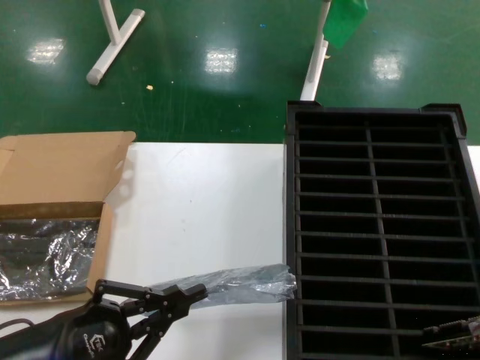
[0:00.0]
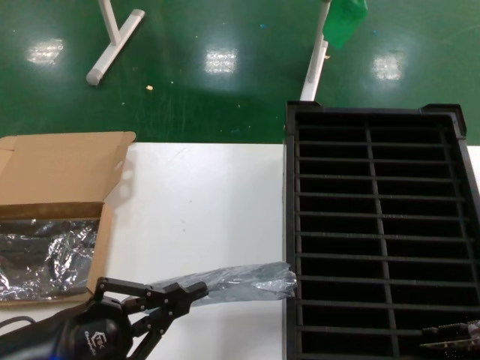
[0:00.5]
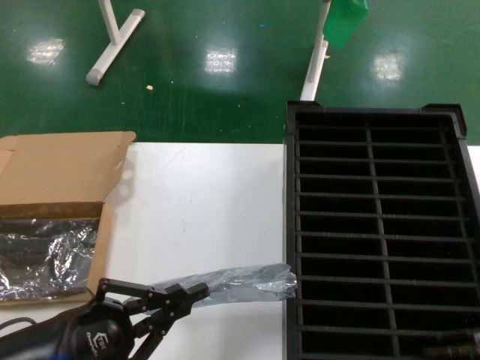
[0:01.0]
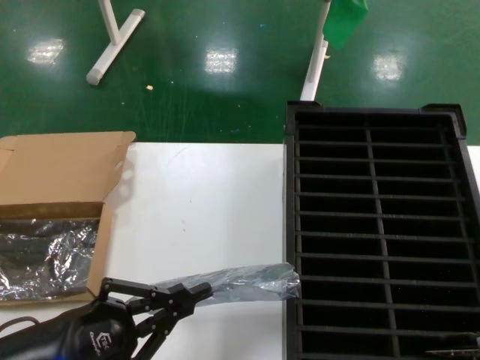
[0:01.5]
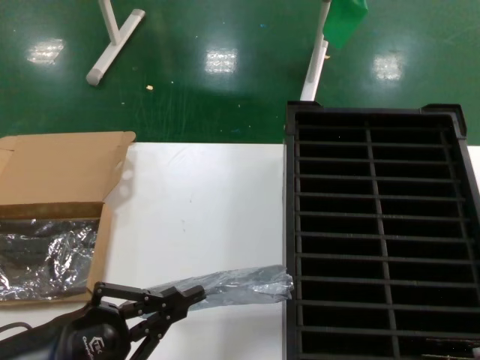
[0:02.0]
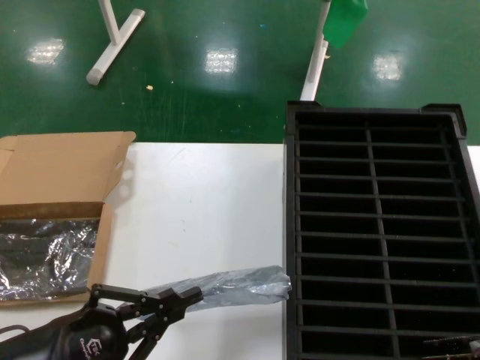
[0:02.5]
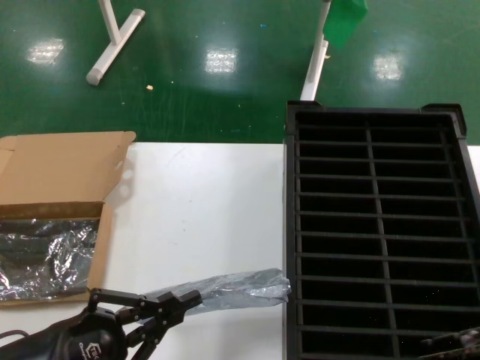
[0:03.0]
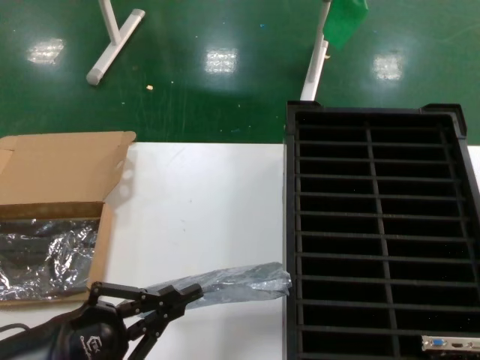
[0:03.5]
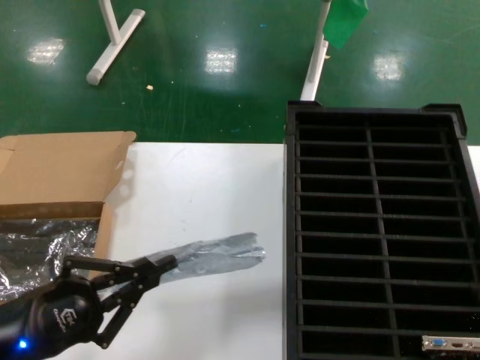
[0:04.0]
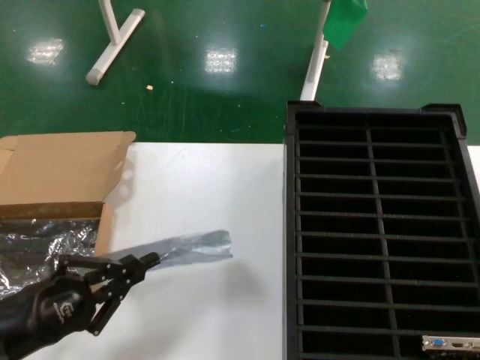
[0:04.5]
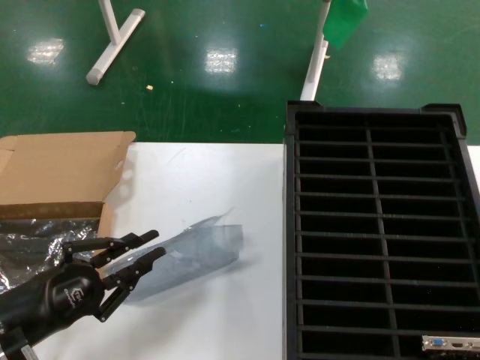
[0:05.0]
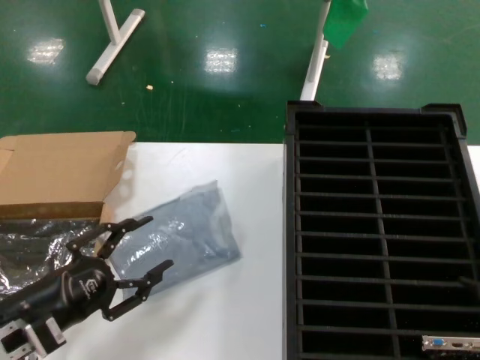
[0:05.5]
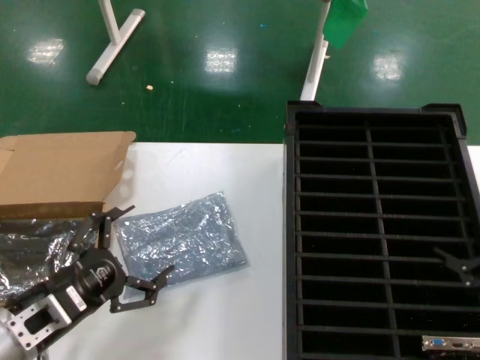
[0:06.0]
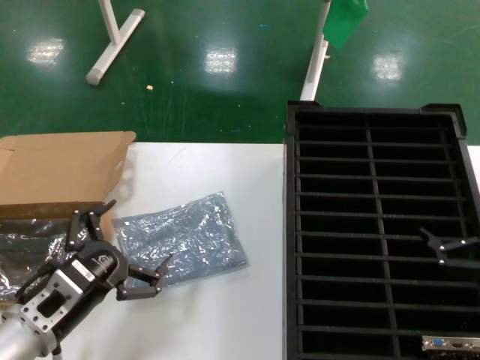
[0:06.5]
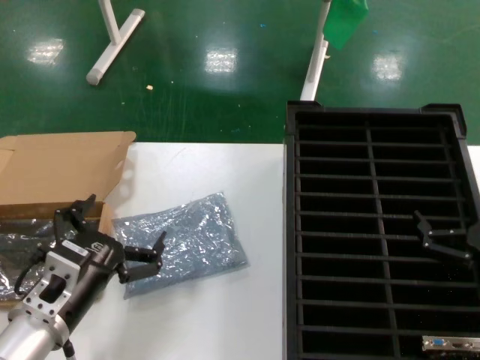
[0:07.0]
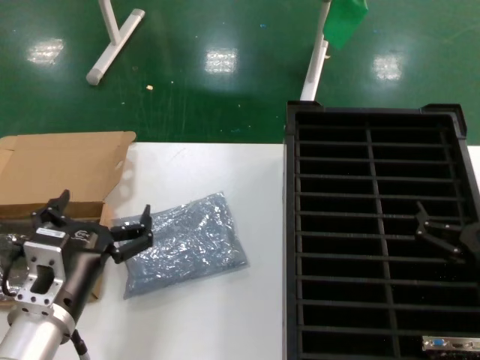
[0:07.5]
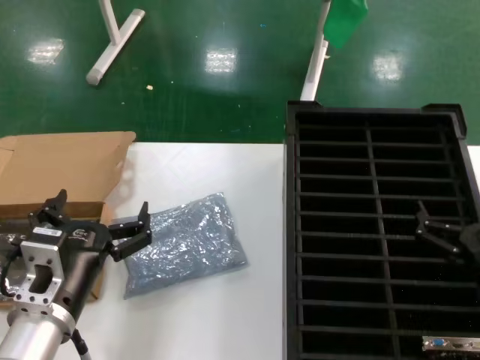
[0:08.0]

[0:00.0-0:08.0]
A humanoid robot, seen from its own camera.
Task of the whole recording: take out graphics card from box remove packaging put into black container.
Step, 0:00.0 to 0:03.0: Place the hard disk in the hard disk enclosure.
Step, 0:03.5 to 0:05.5: Place the down the bag.
0:00.0 to 0:02.0: The hands stay close to where they were, moving slightly.
0:02.0 to 0:04.0: The right hand shifts by some 5 cm.
0:04.0 to 0:06.0: The left hand shifts by roughly 5 cm, while the right hand is displaced downward by about 5 cm.
0:06.0 to 0:08.0: The left hand shifts some 10 cm to the right. The right hand goes about 15 cm to the left and downward.
